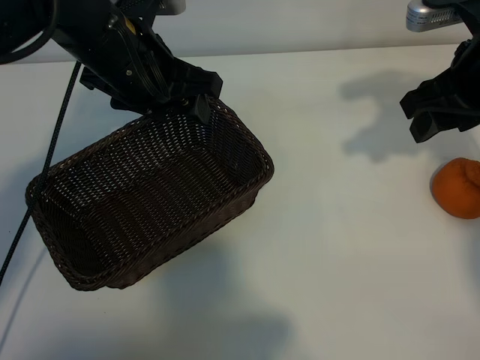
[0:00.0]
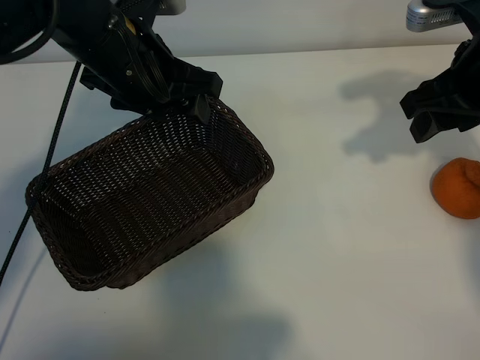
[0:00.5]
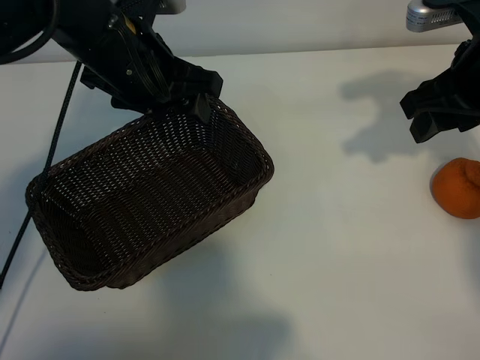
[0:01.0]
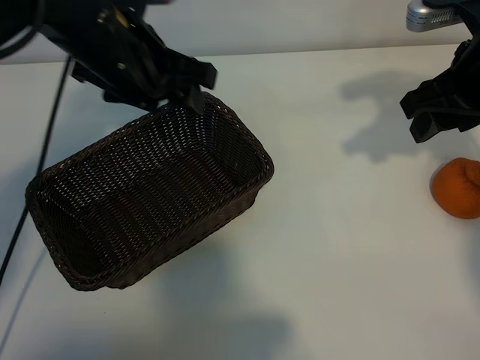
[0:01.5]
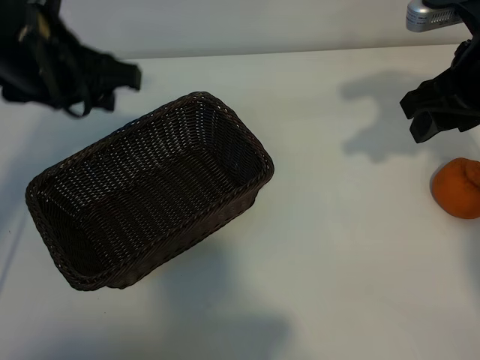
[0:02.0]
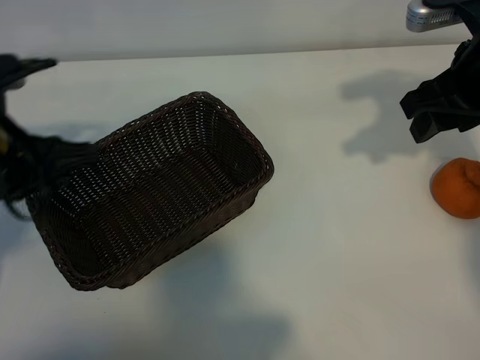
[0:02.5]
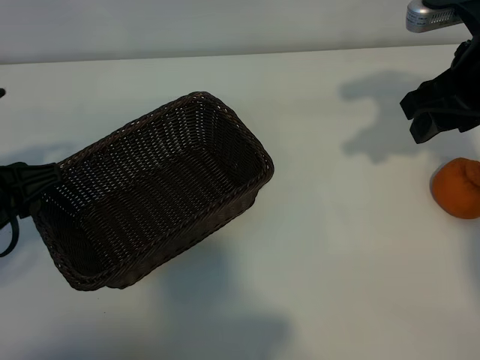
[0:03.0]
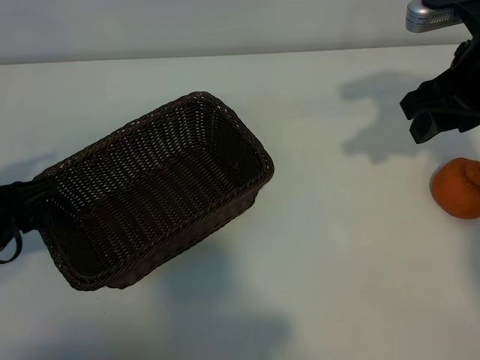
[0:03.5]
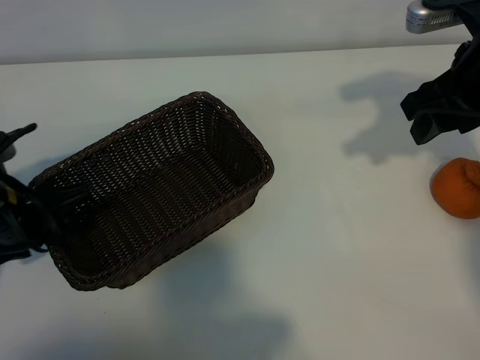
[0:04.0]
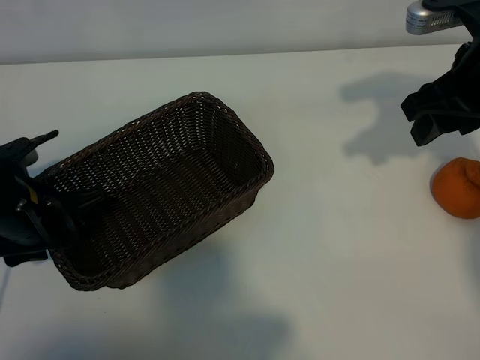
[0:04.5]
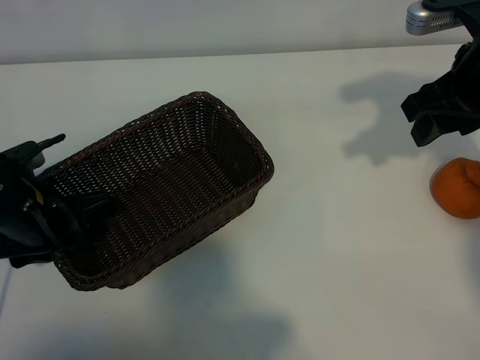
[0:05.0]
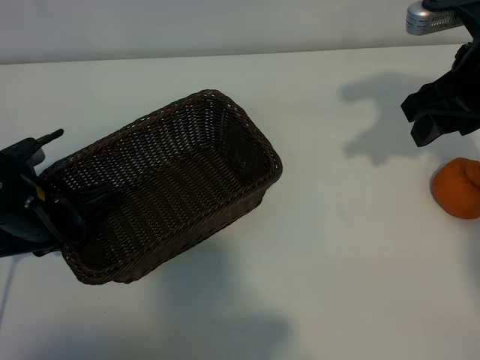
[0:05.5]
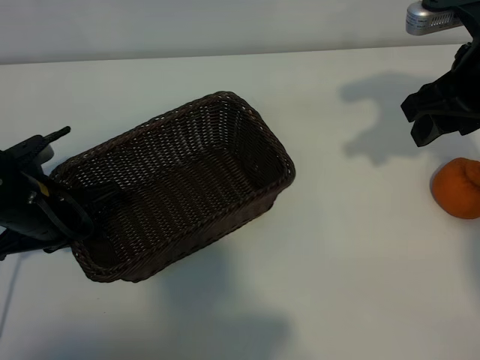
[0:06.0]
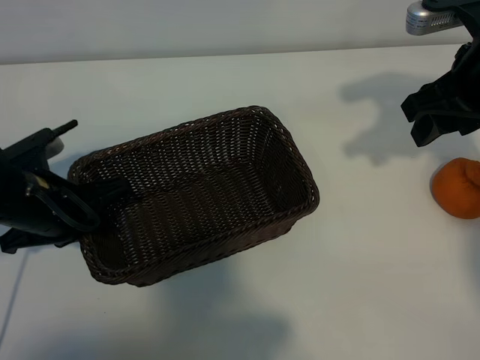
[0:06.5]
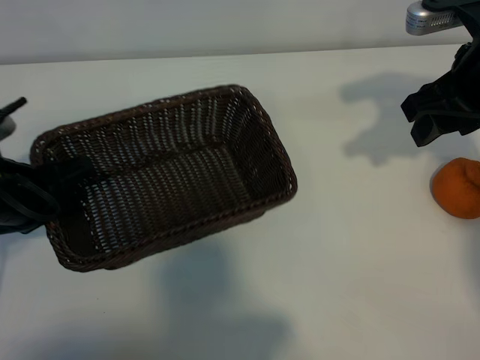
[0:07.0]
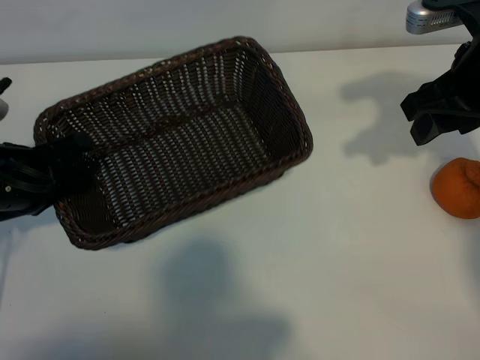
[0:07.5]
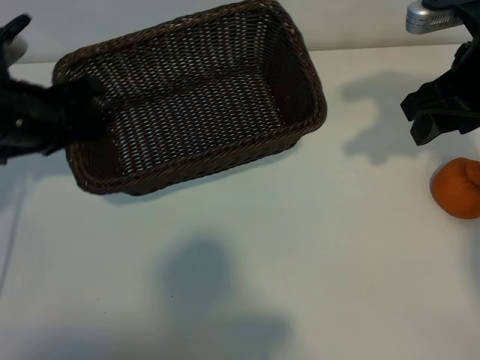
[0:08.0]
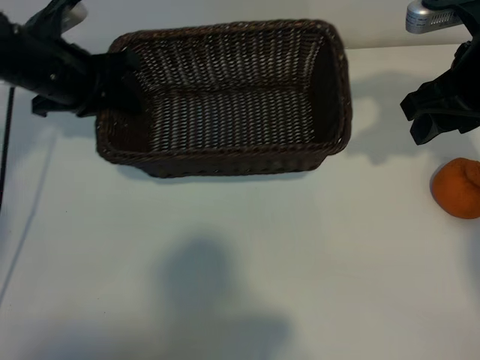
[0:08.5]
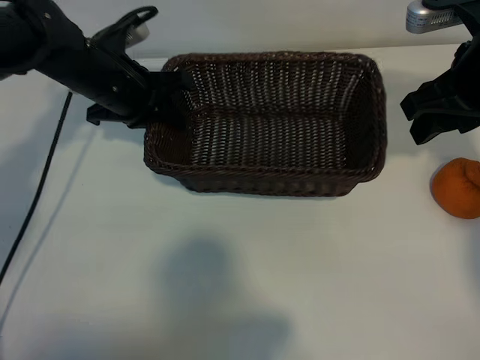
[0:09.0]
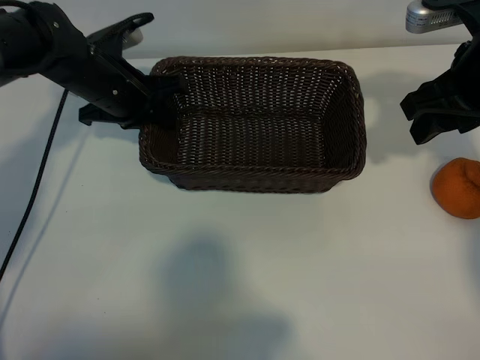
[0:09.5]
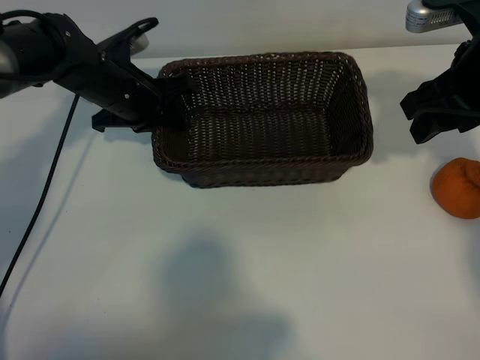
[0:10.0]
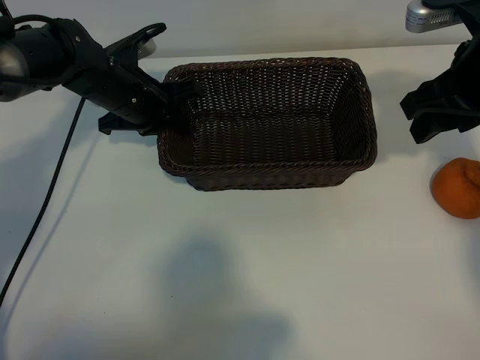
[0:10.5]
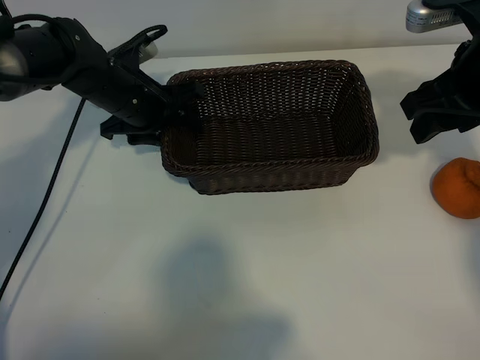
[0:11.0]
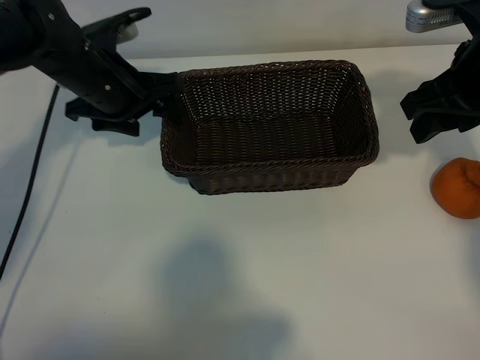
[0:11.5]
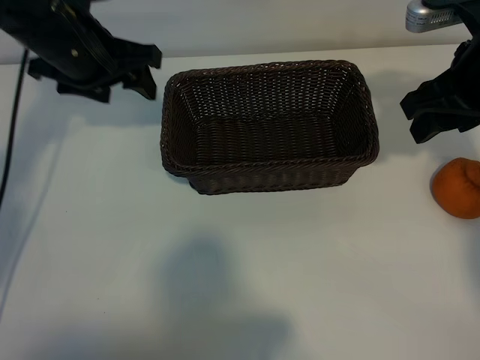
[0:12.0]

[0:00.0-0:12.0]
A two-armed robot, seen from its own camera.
Task of the whole recording: pick up the orange and put it into the basket.
Step, 0:01.0 to 0:05.5: Grasp the basket with left gripper.
Step, 0:06.0 to 0:10.5: Place the basket in the center of view with left gripper.

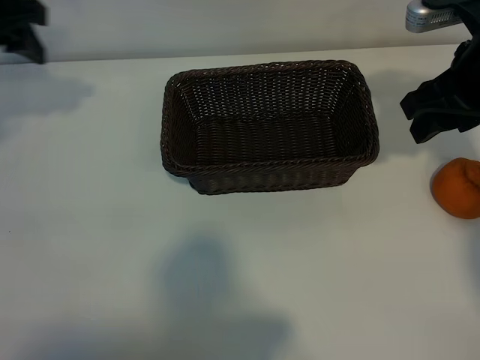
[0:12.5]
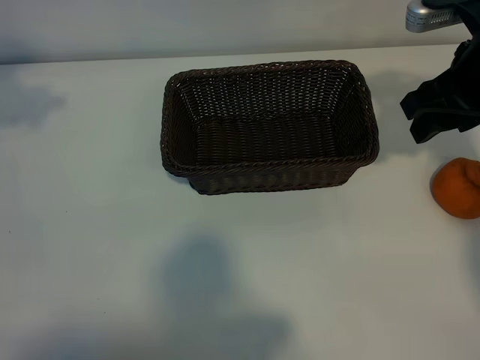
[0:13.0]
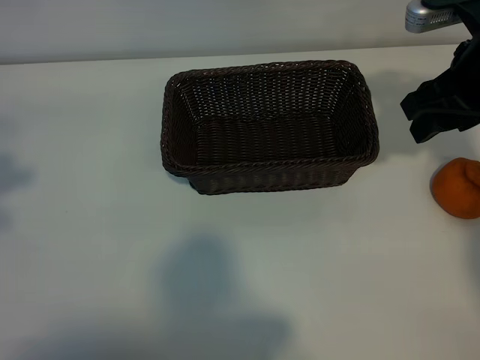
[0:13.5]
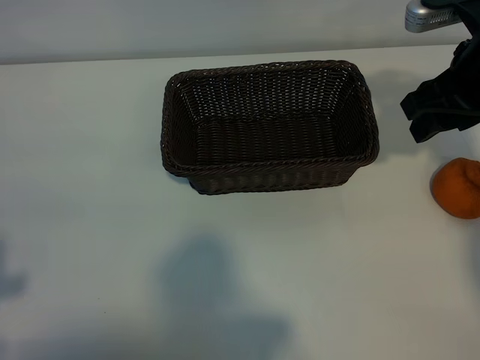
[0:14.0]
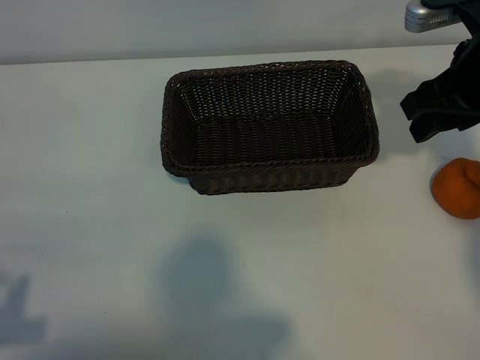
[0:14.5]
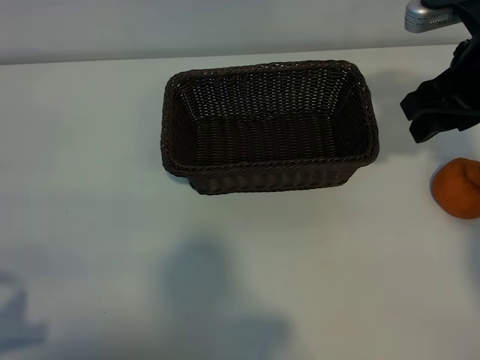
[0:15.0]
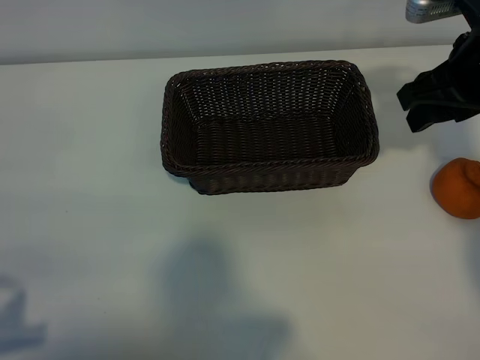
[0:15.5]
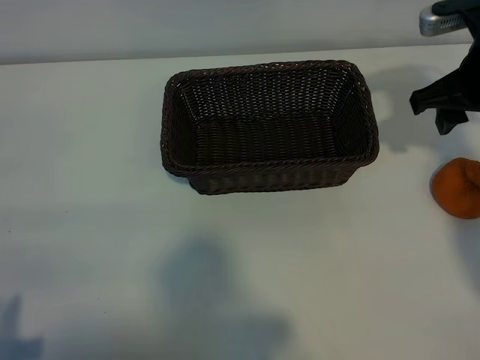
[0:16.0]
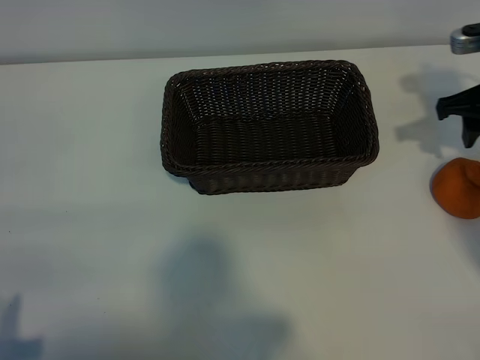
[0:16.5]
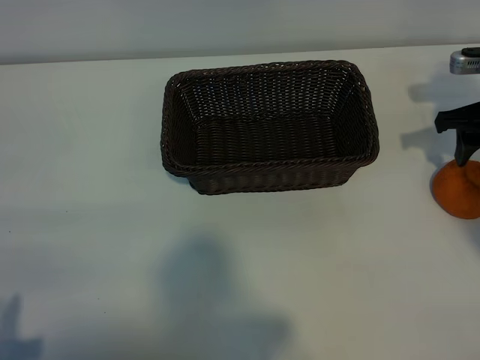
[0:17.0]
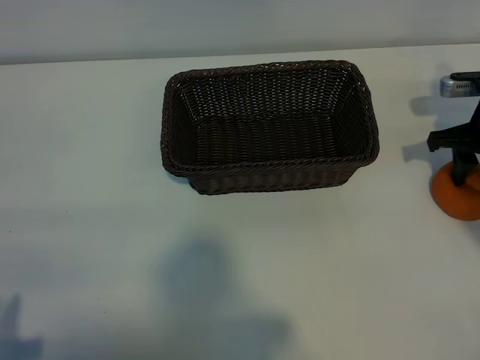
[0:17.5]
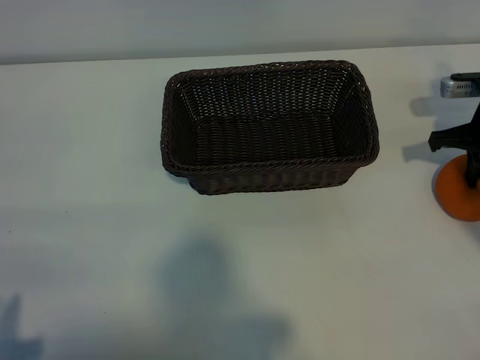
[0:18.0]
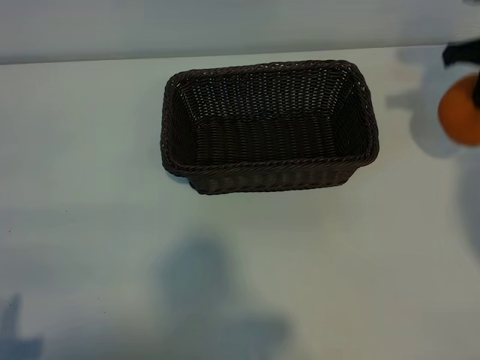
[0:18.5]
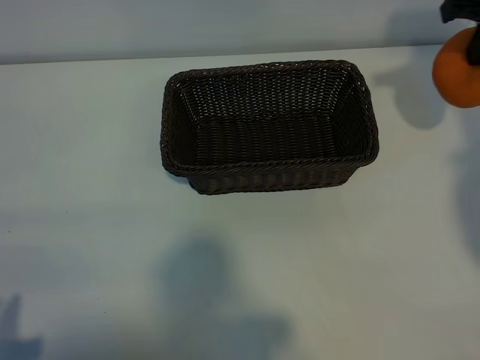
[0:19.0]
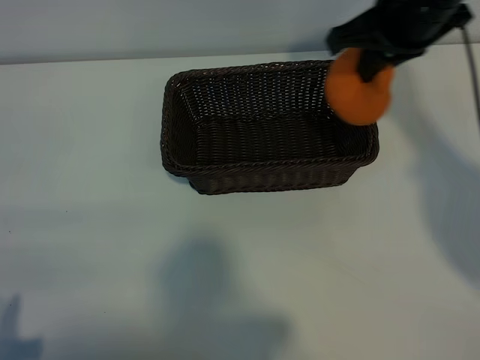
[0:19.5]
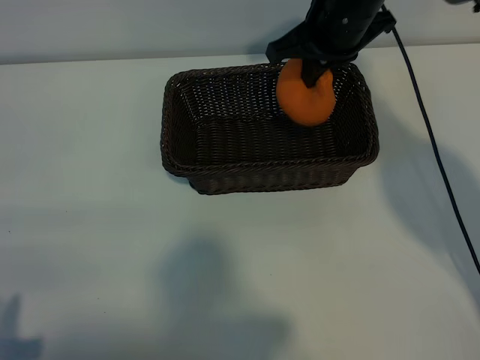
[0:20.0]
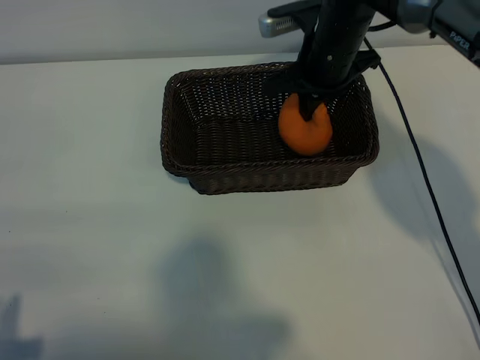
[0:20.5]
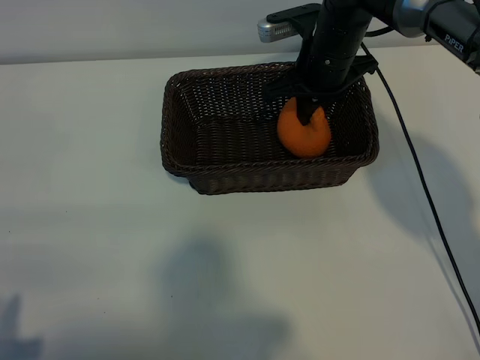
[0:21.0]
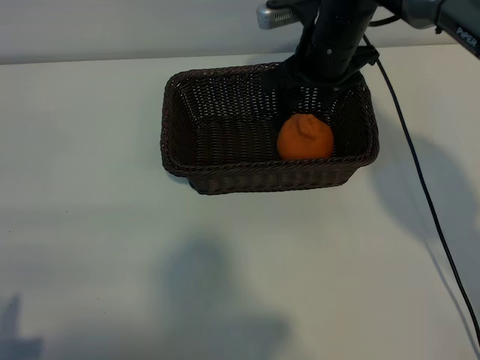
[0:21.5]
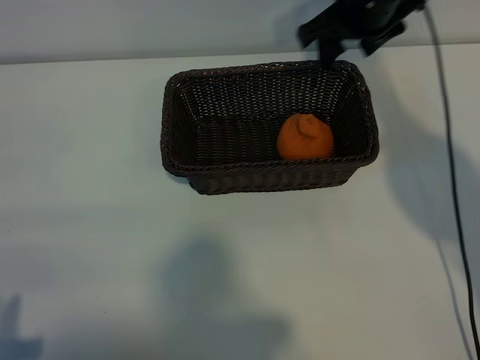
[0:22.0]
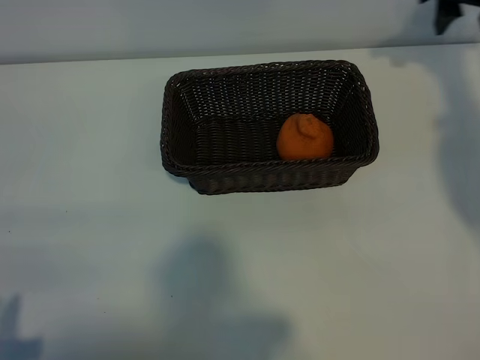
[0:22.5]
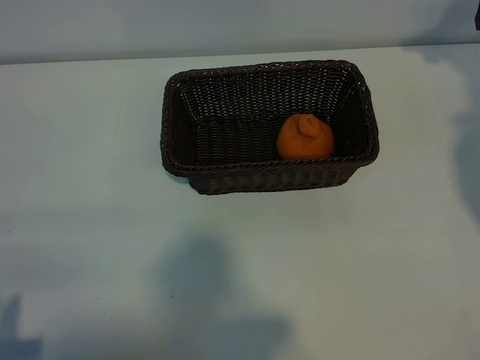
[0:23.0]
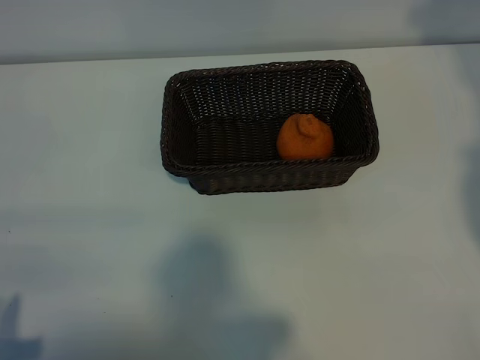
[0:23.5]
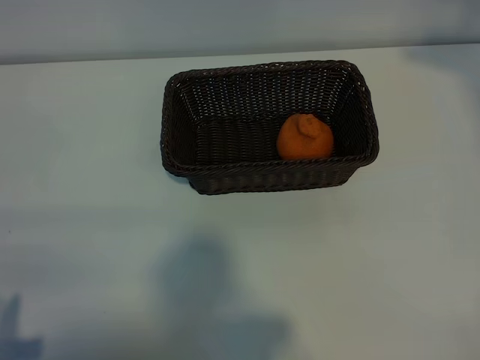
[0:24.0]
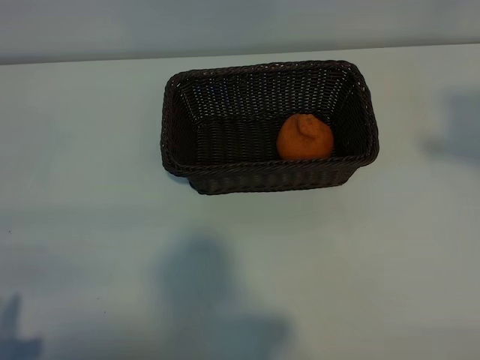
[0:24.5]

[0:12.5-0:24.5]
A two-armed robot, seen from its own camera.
Task of the whole recording: pick up the orange and put it into the basket.
Step, 0:12.5 to 0:17.5: Grasp the orange with right gripper.
Step, 0:18.0 to 0:21.0: Place the orange in the basket with right gripper.
